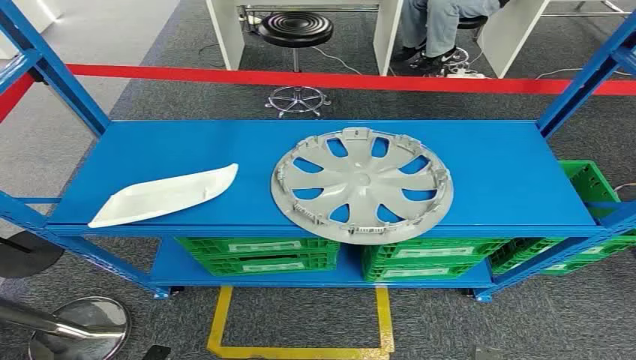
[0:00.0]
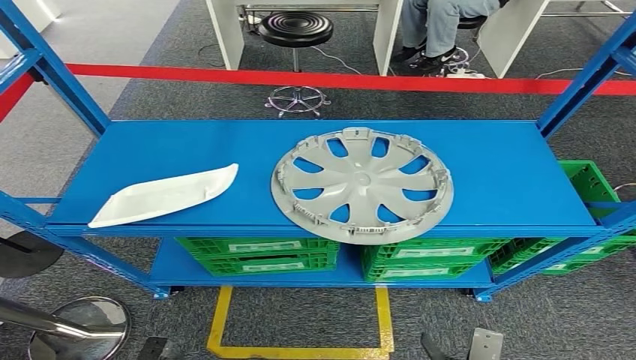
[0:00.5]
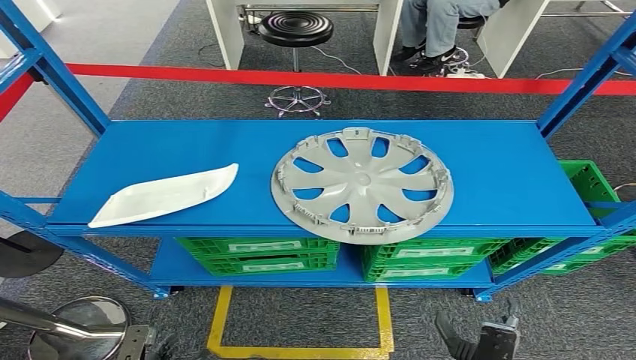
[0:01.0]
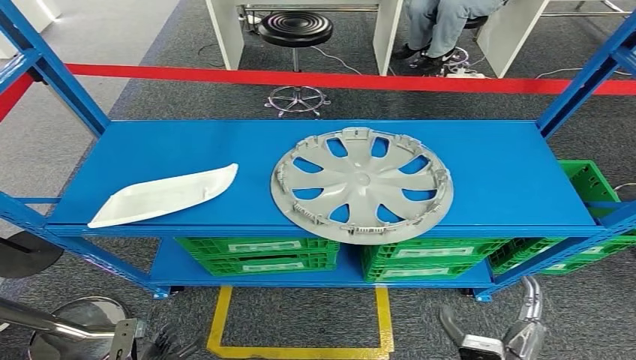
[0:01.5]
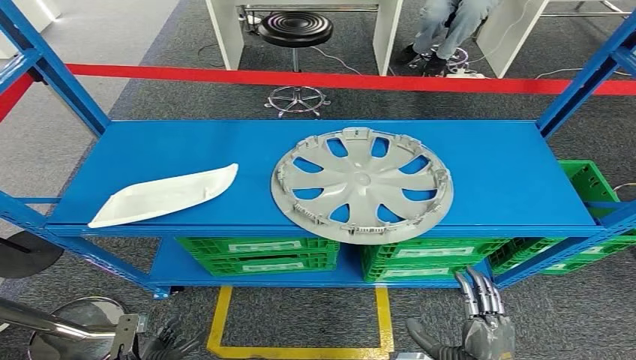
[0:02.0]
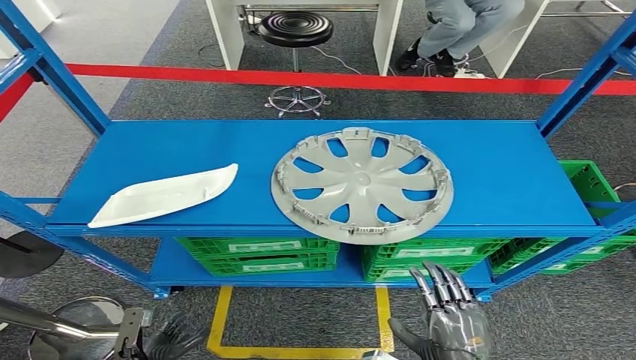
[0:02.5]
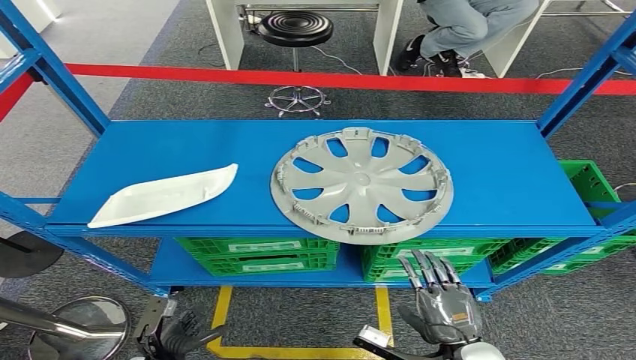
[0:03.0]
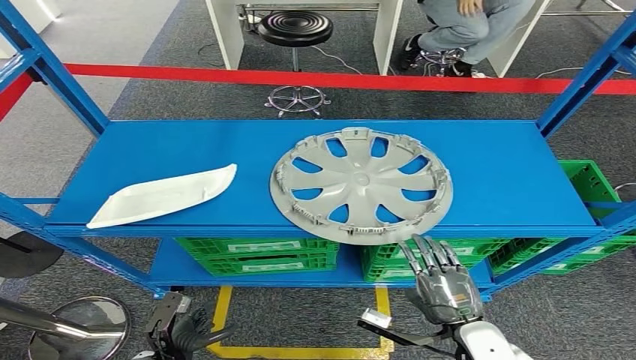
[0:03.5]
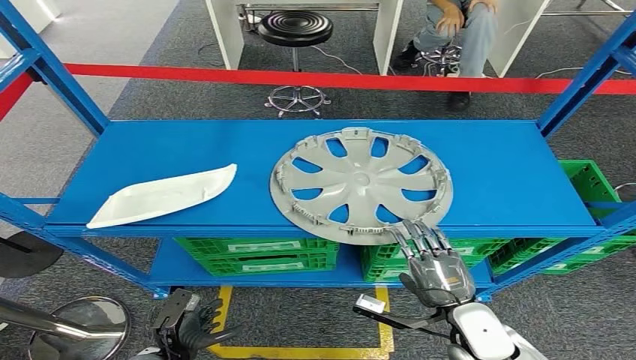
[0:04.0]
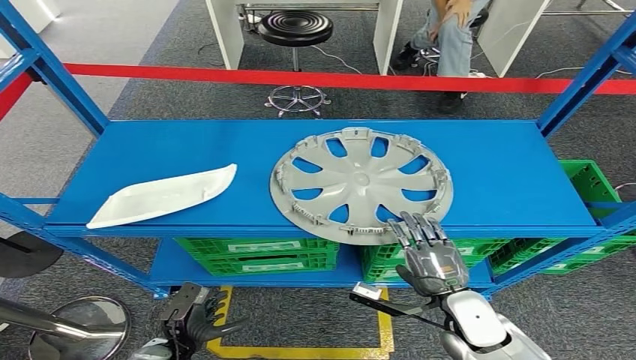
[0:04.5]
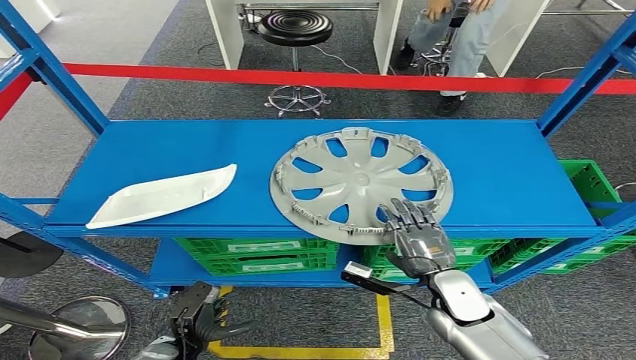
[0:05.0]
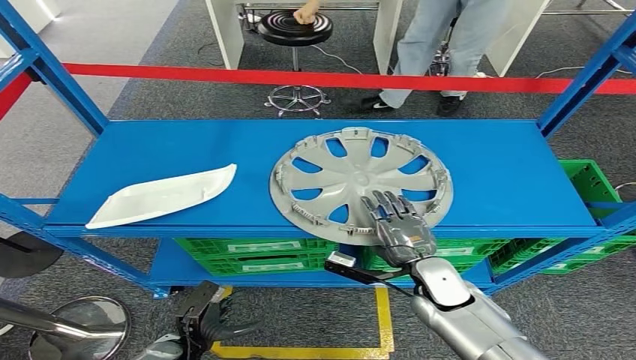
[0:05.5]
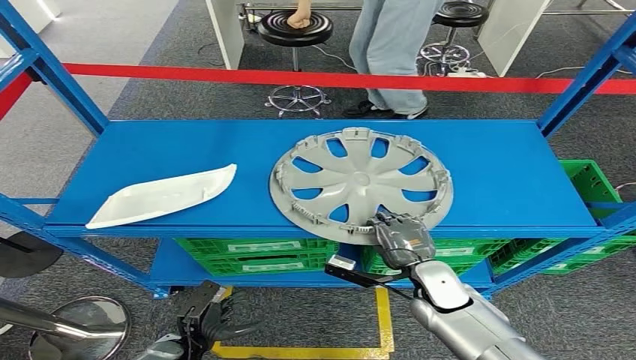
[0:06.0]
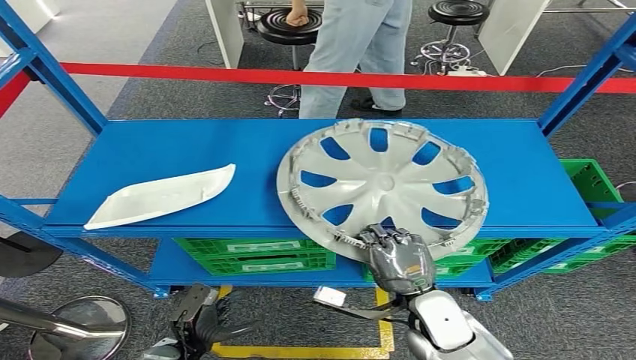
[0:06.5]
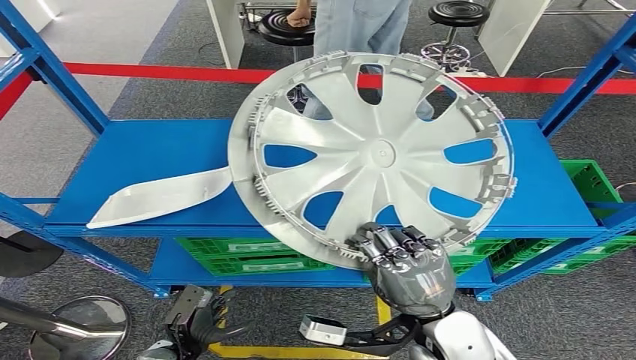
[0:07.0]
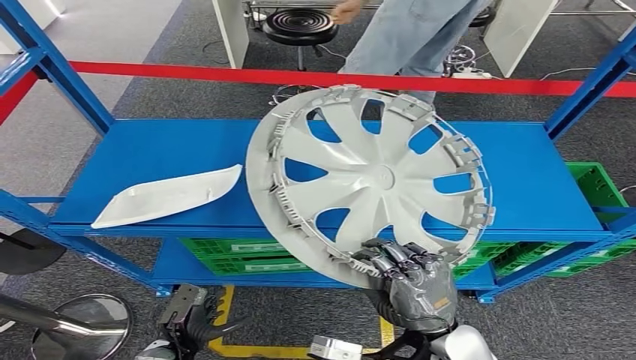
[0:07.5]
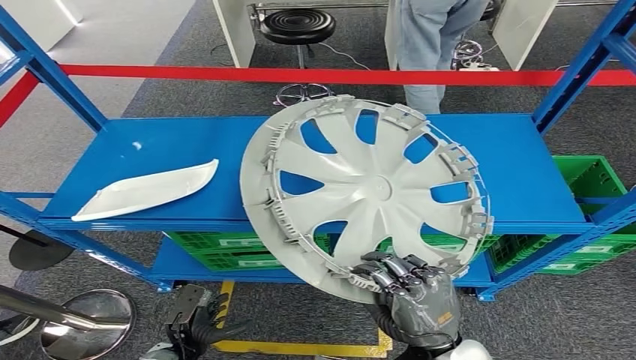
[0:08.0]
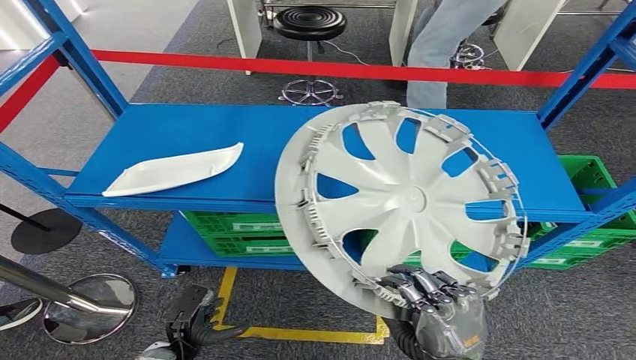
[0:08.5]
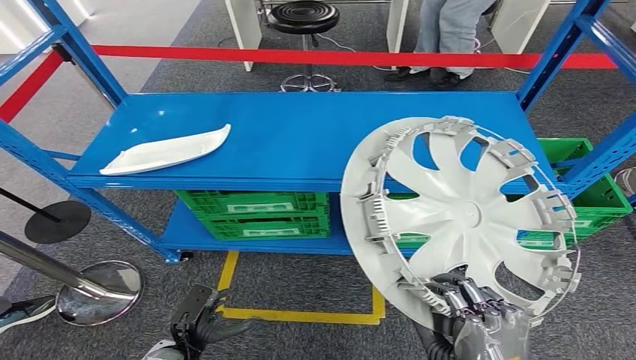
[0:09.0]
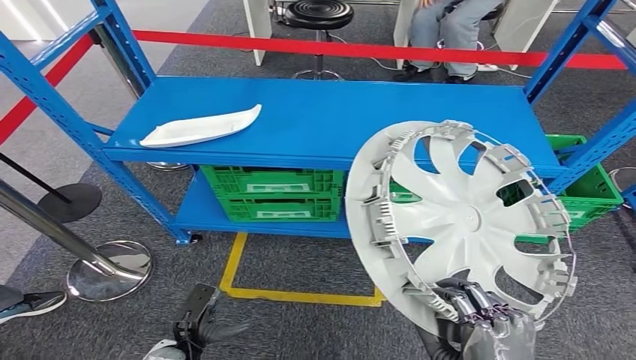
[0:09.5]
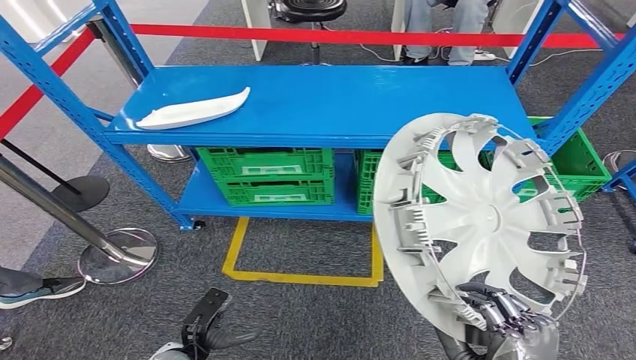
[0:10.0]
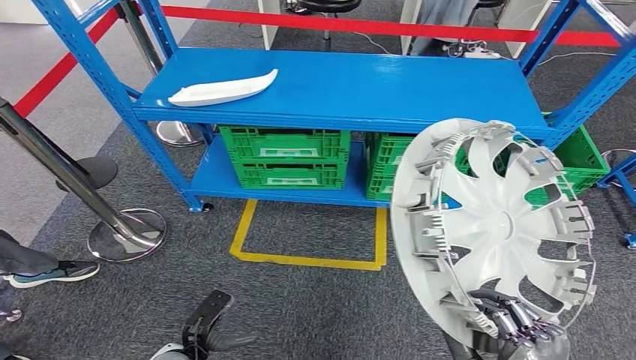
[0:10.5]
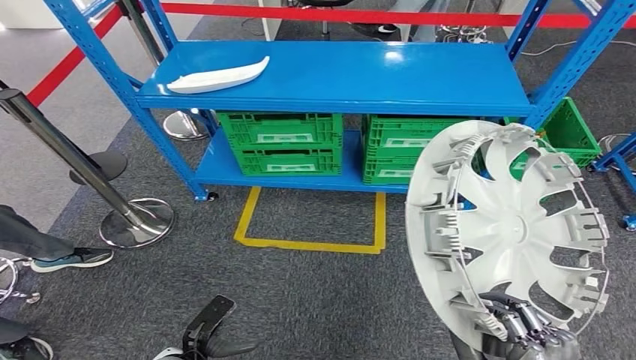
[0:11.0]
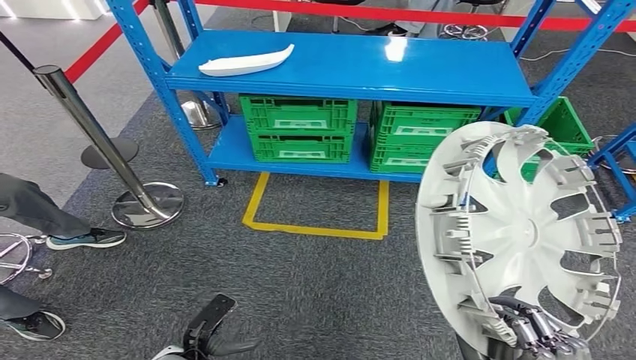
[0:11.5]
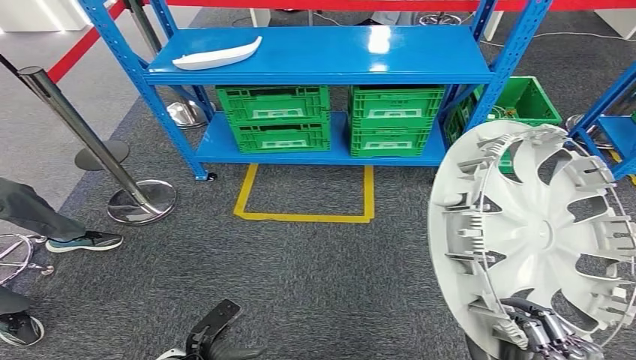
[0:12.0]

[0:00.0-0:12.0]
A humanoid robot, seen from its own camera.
Step, 0:00.0 to 0:10.0: Pick up the small parts from the shelf.
0:02.0 to 0:04.0: The right hand is displaced forward by some 10 cm, while the left hand travels forward by about 5 cm.
0:04.0 to 0:06.0: The right hand shifts roughly 10 cm forward and to the left.

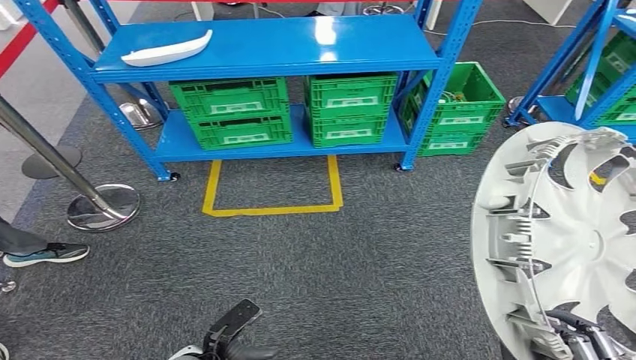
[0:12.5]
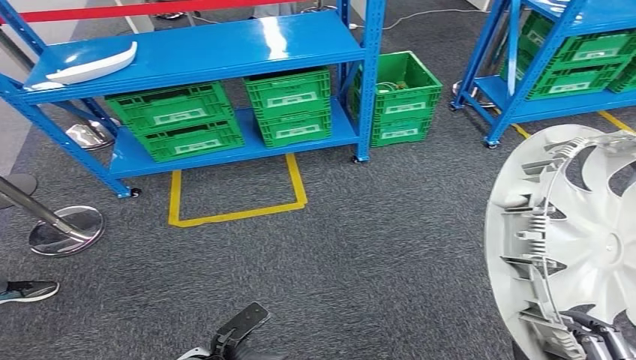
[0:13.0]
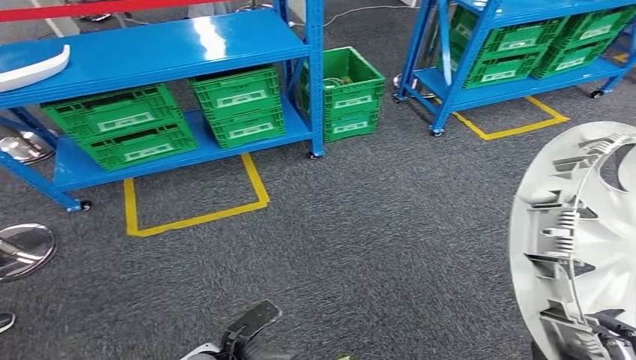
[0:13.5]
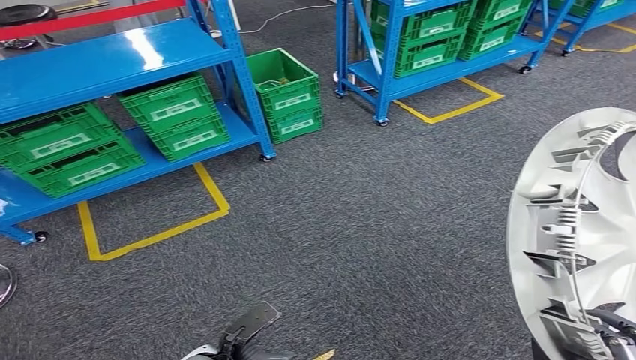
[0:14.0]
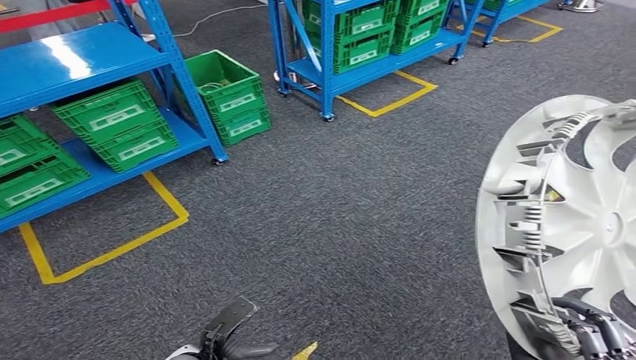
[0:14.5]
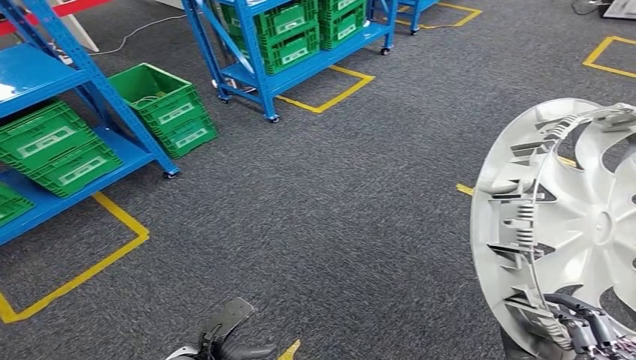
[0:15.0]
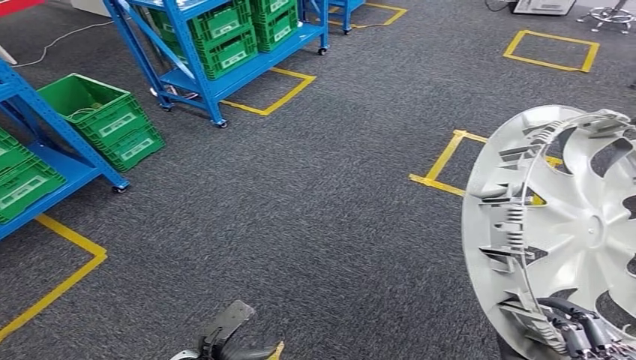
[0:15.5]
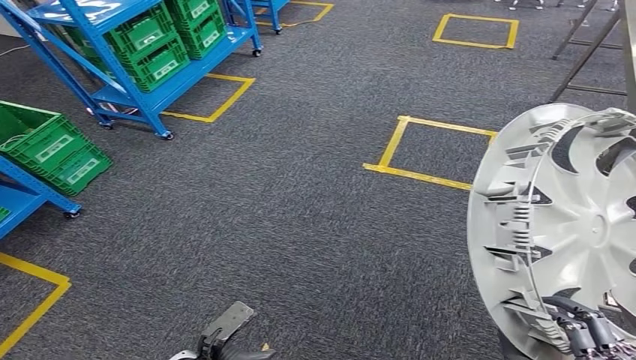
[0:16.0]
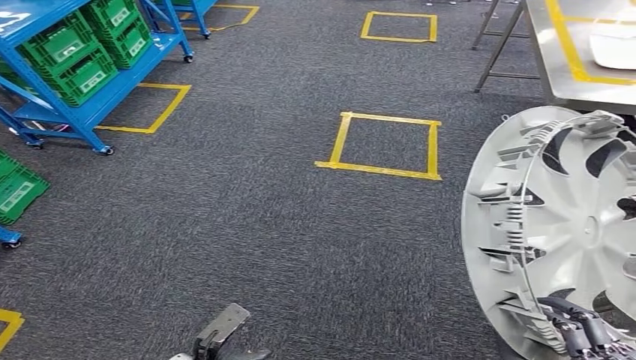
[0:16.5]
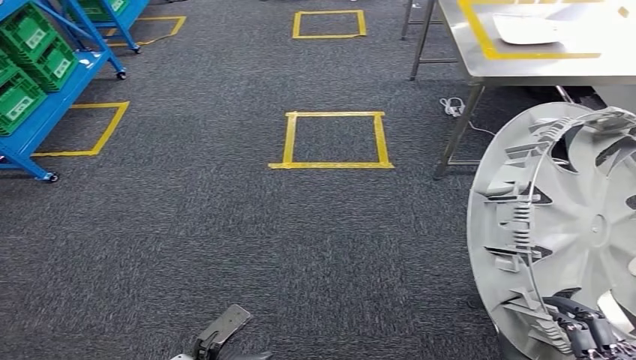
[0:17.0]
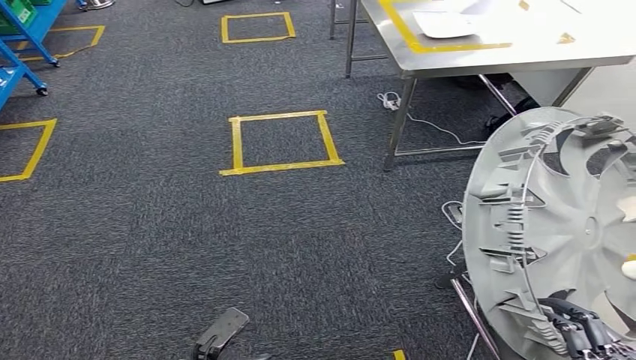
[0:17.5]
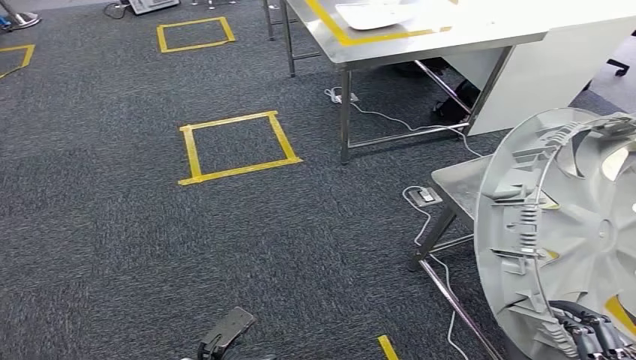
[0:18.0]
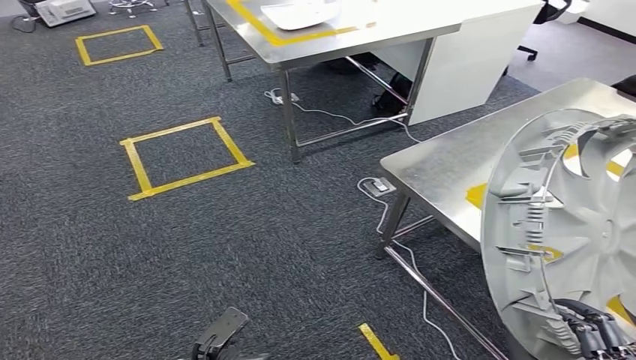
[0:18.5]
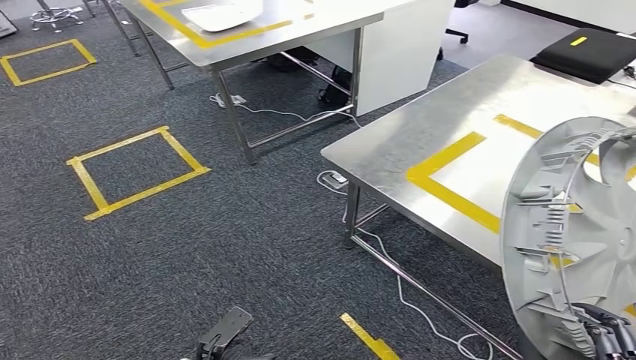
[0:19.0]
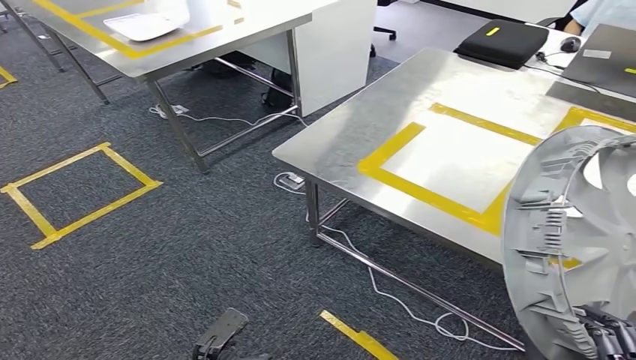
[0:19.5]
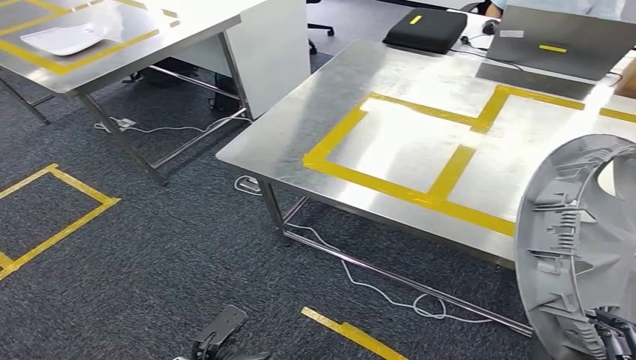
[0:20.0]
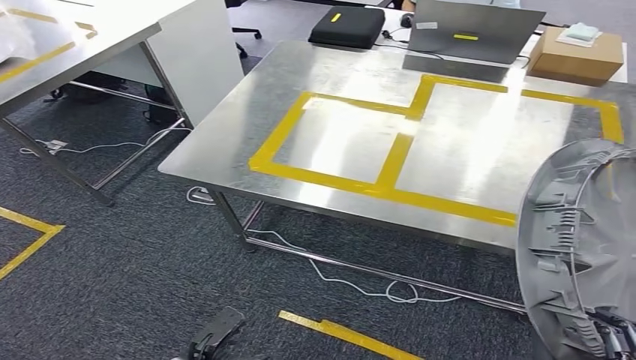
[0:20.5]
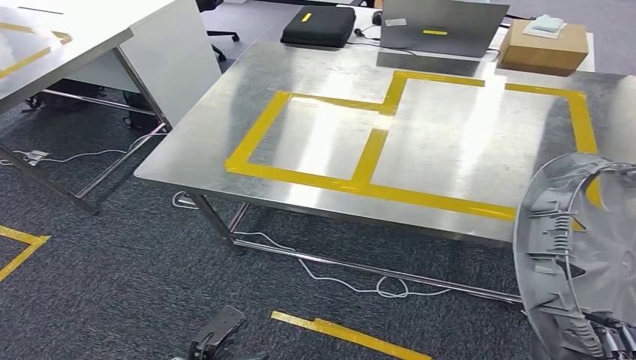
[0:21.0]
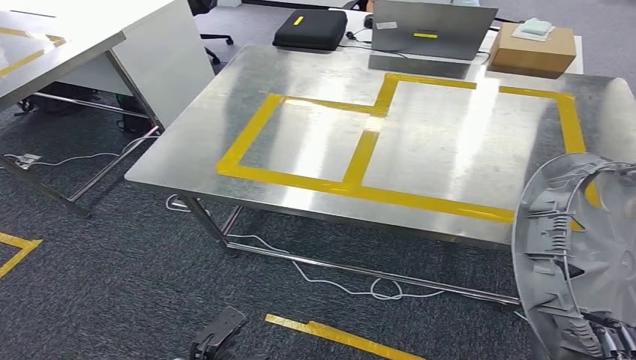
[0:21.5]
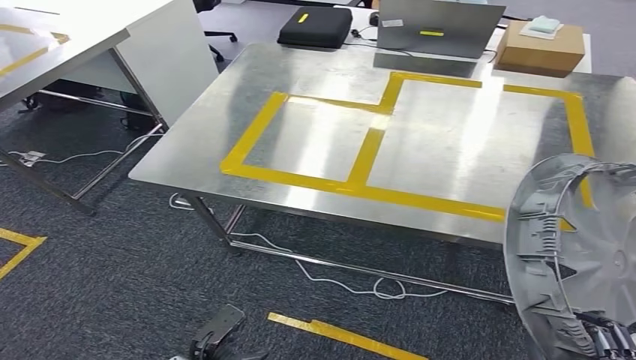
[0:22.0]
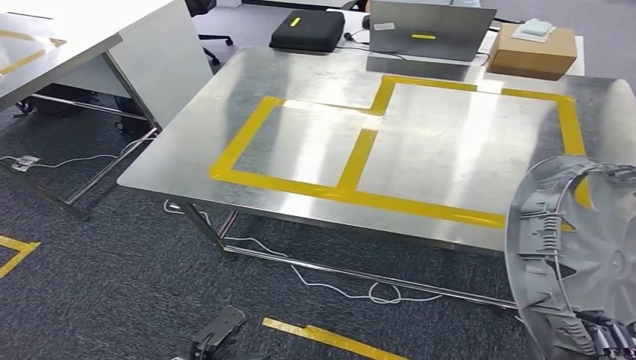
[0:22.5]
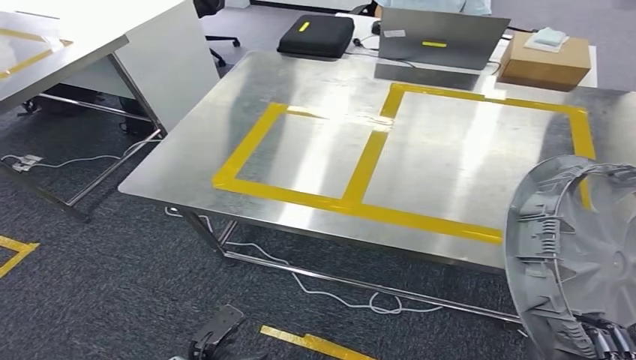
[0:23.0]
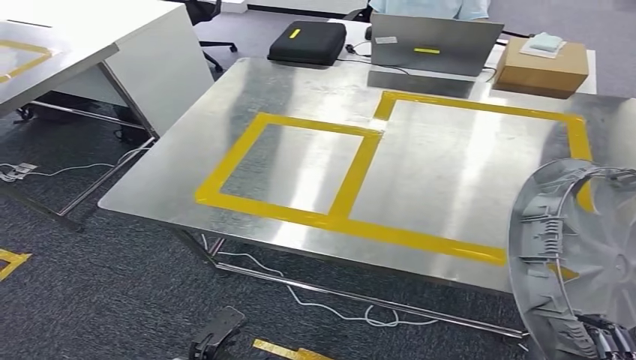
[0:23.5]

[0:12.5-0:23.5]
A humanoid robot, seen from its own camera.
Step, 0:12.5 to 0:21.5: Move the small parts to the workbench.
